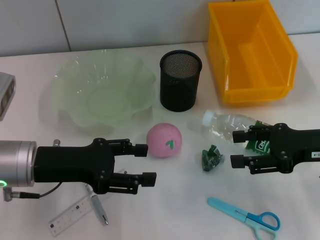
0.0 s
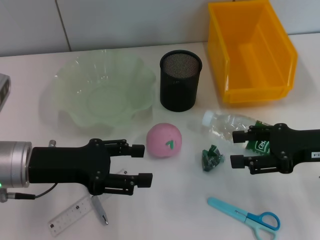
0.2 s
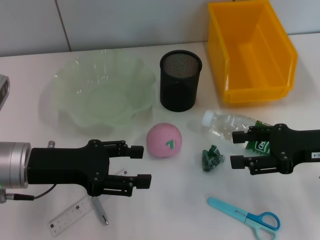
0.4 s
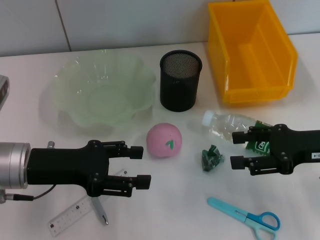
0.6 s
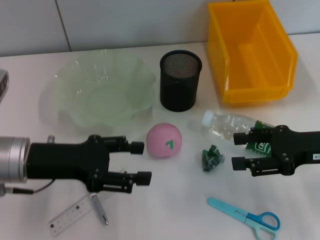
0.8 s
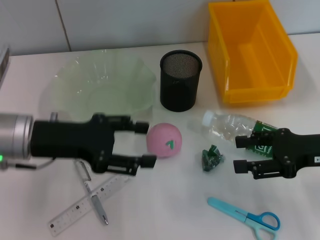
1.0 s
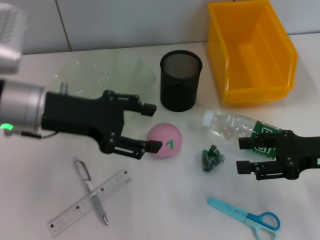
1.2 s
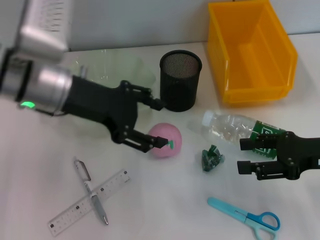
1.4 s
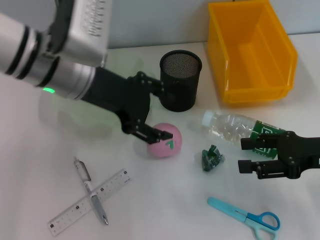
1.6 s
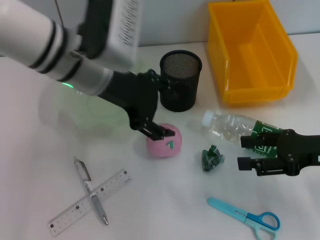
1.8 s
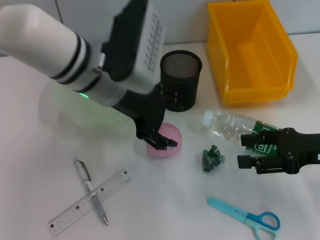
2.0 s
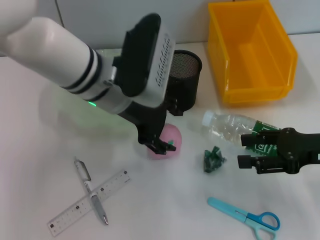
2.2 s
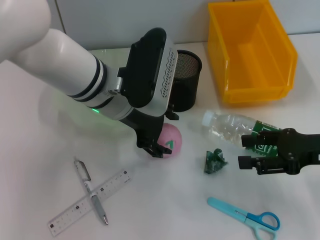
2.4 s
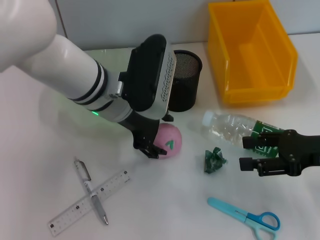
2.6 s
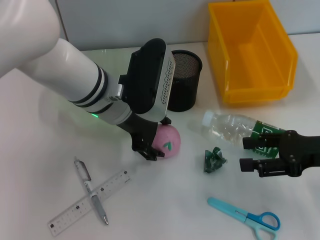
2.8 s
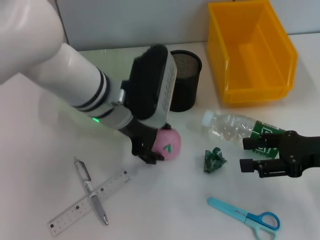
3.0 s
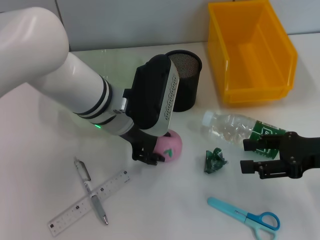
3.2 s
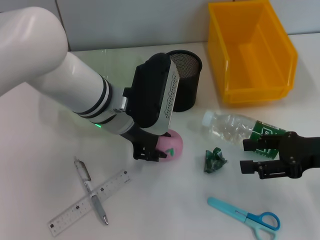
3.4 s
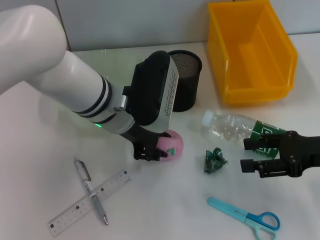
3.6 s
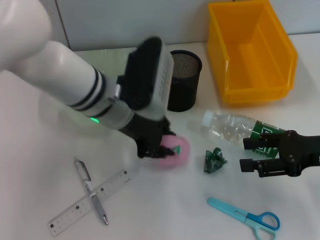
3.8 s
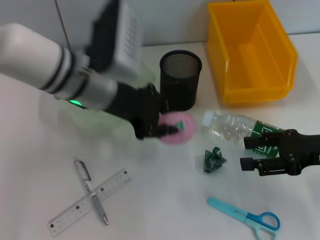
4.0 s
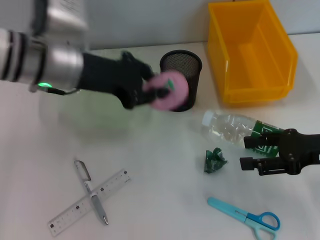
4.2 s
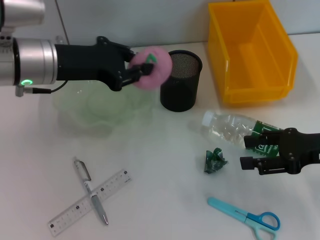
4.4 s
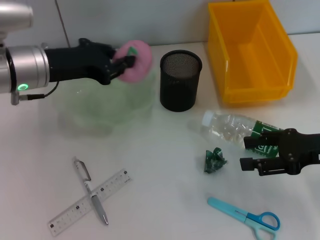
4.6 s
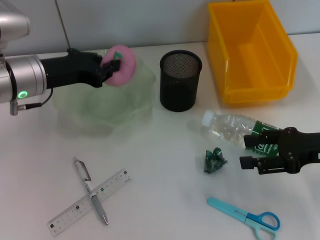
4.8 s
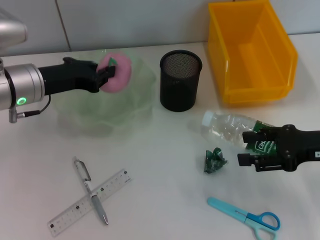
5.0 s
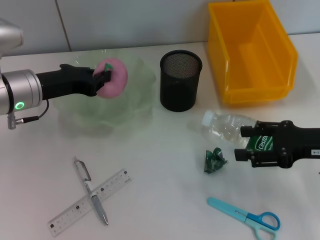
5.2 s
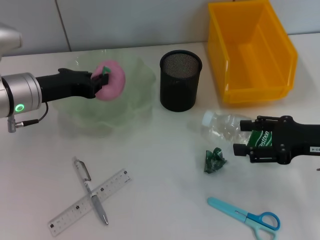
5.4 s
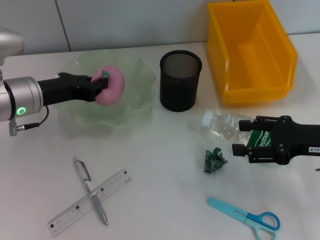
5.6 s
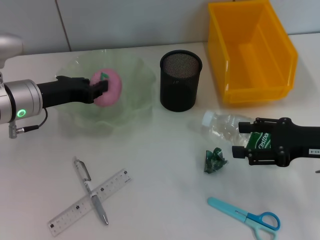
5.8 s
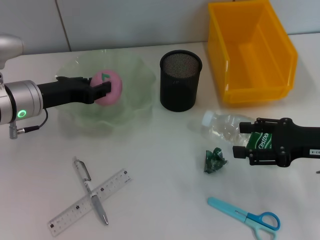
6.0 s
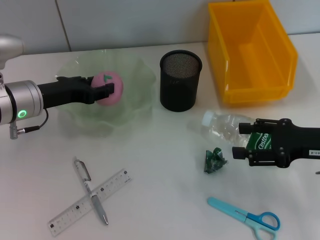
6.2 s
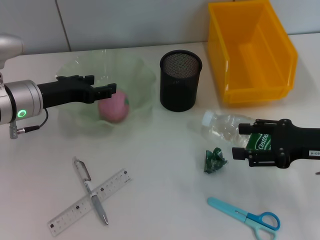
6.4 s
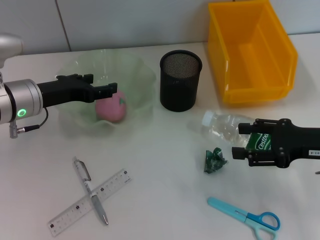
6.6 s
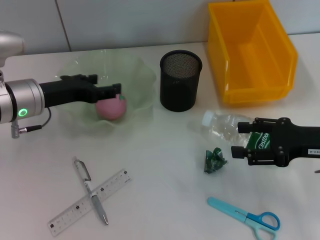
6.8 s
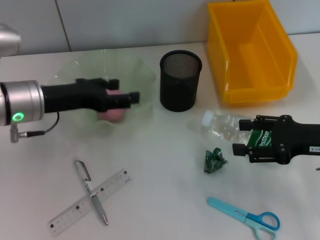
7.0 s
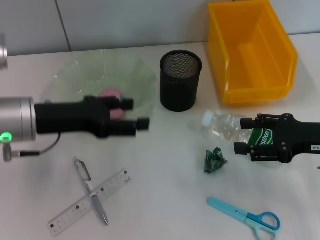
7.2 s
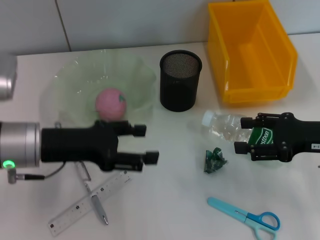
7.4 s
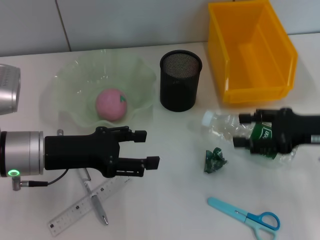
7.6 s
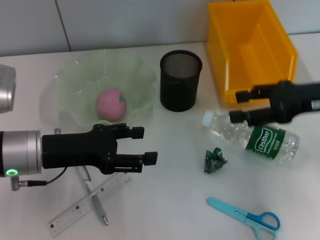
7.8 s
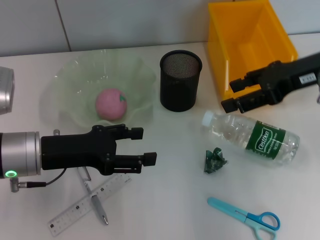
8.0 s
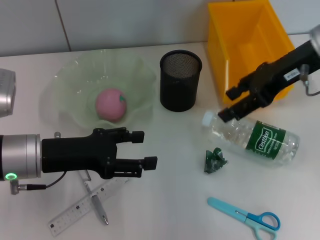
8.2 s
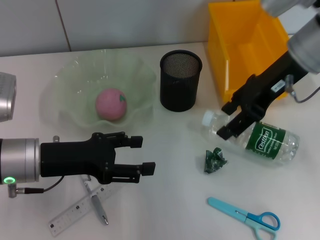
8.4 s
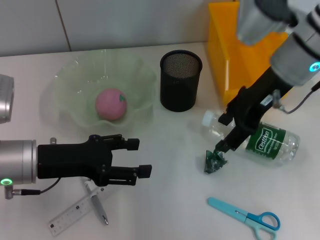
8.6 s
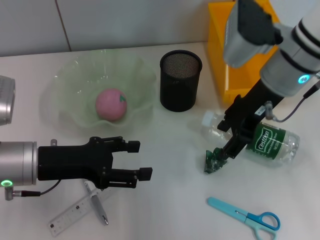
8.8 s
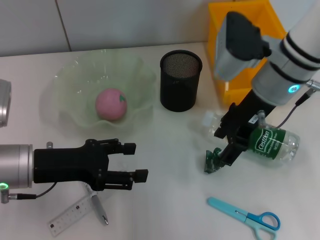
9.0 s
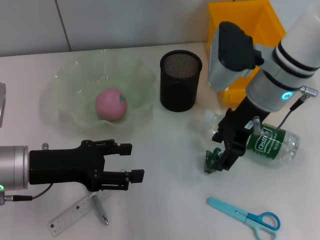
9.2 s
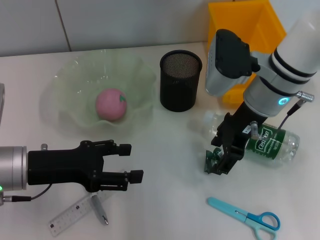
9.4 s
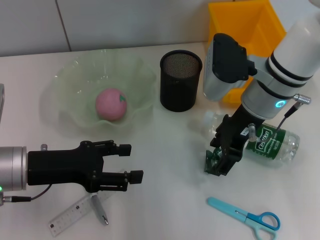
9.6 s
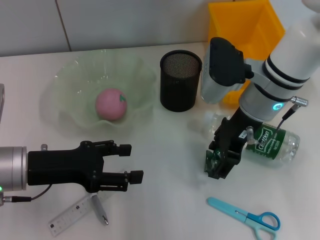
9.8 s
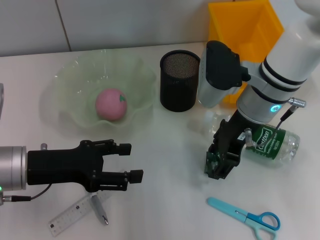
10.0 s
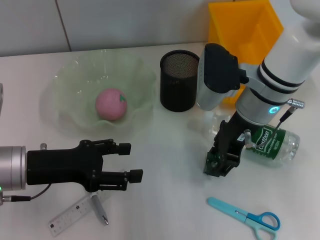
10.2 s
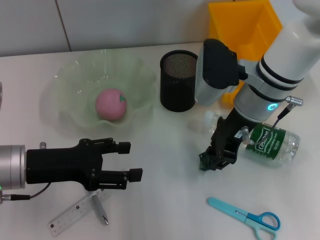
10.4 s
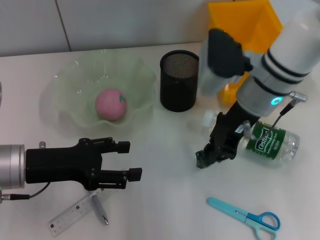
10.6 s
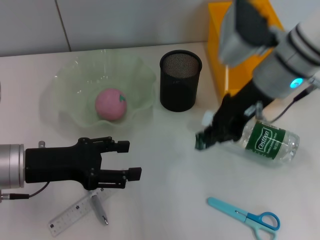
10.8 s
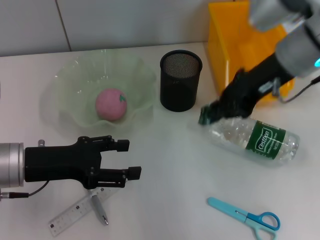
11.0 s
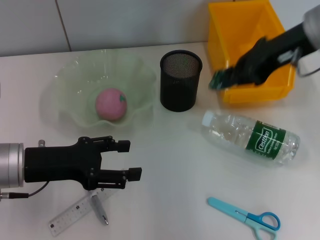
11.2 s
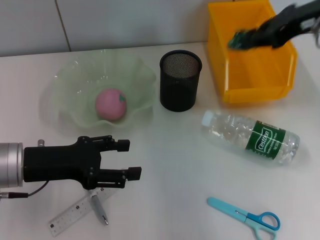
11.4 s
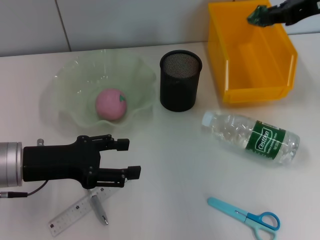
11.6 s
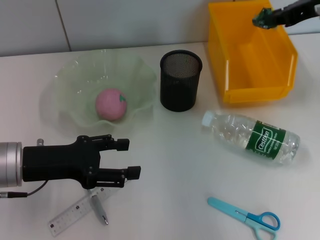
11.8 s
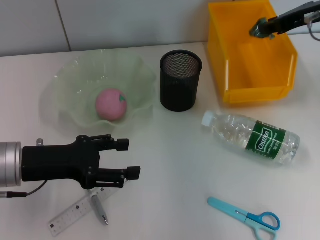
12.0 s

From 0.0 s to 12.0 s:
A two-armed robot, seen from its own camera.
Step, from 0.0 s to 3.6 s: Grab the peach with the left hand.
Step, from 3.8 s to 6.4 s: Place the peach into the fruit bowl with the left hand.
Step, from 6.6 s to 10.2 s: Grab the plastic with the right hand.
From 0.0 s to 1.6 s: The left gripper travels upward, to the right and forward by some 15 cm.
From 1.6 s to 3.0 s: The left gripper travels downward and to the right by some 10 cm.
From 3.0 s to 4.4 s: The left gripper shifts about 10 cm to the left, and closes its fingers.
From 4.4 s to 6.0 s: The left gripper moves downward, roughly 10 cm.
From 6.0 s to 7.6 s: The left gripper travels backward by about 10 cm, and opens its fingers.
From 7.6 s to 9.0 s: The right gripper shifts about 20 cm to the left, forward and upward.
From 9.0 s to 10.4 s: The right gripper closes.
From 10.4 s to 12.0 s: The right gripper shifts some 15 cm to the right and upward, and closes.

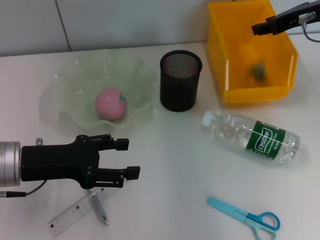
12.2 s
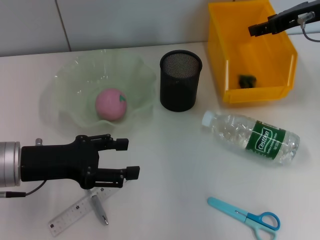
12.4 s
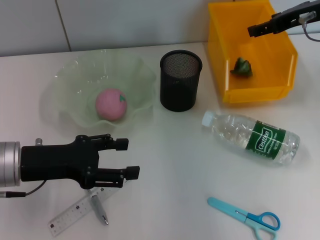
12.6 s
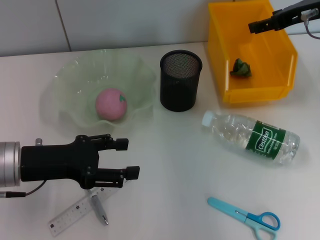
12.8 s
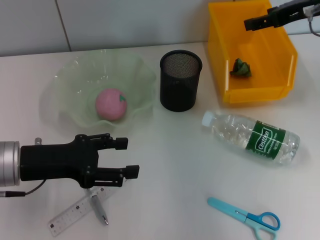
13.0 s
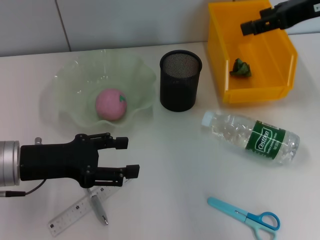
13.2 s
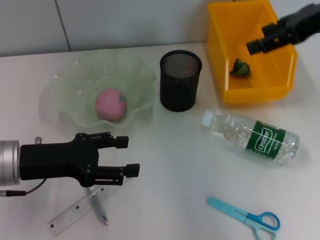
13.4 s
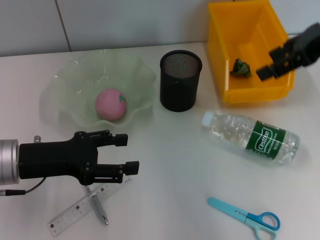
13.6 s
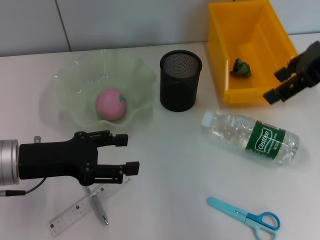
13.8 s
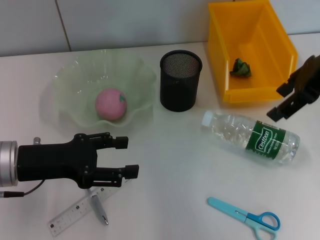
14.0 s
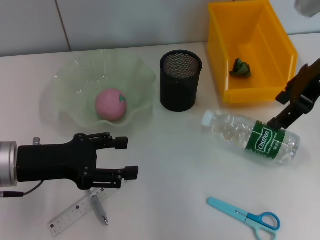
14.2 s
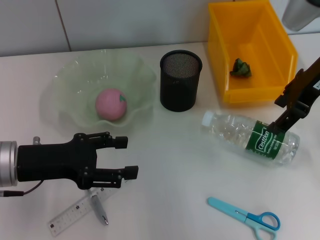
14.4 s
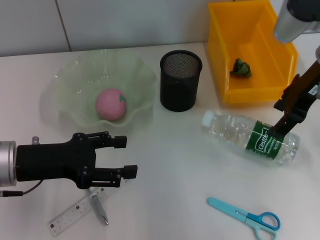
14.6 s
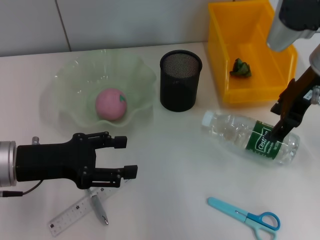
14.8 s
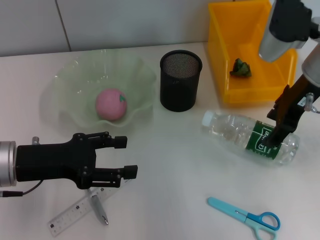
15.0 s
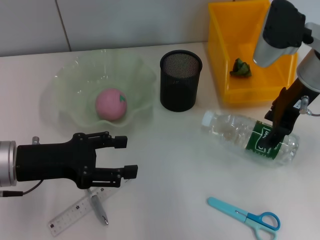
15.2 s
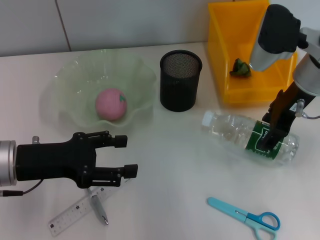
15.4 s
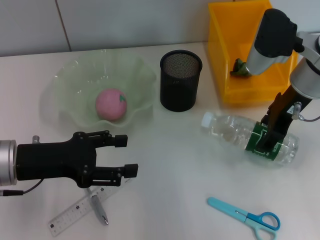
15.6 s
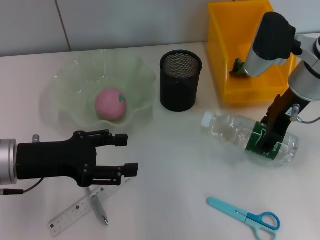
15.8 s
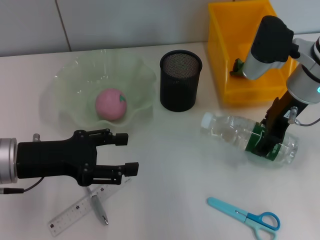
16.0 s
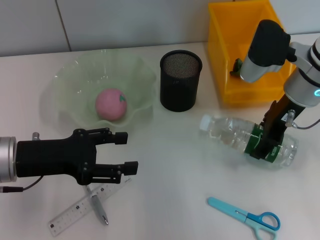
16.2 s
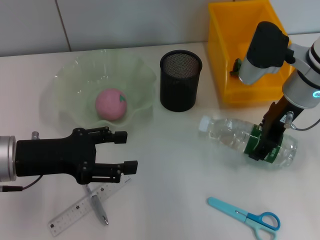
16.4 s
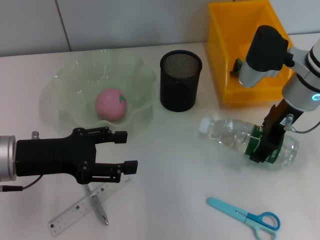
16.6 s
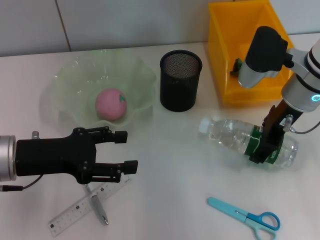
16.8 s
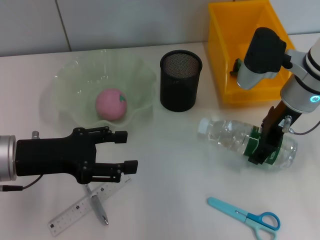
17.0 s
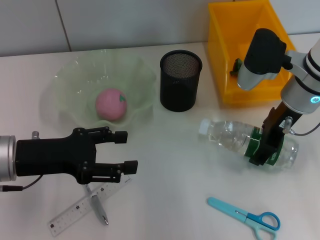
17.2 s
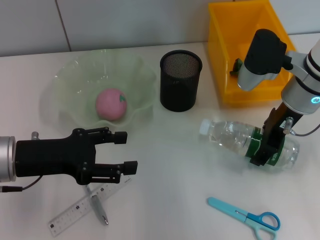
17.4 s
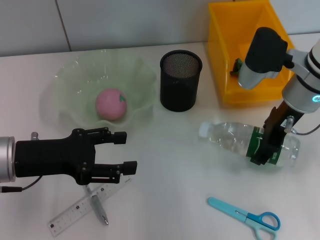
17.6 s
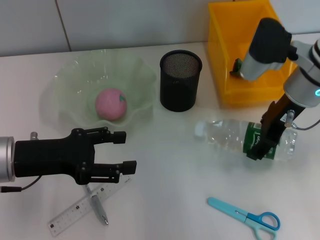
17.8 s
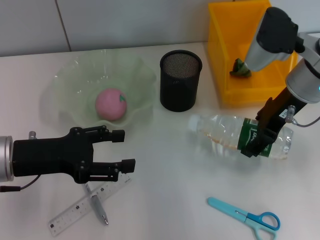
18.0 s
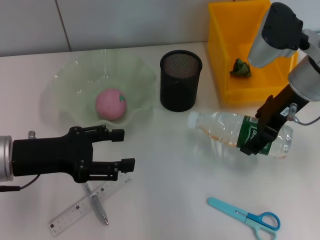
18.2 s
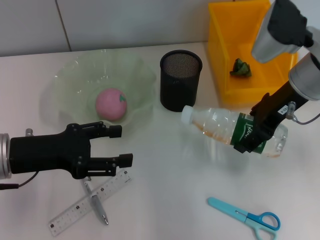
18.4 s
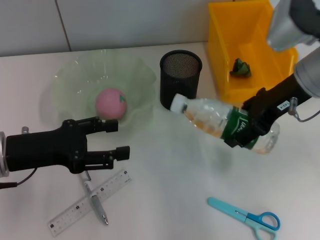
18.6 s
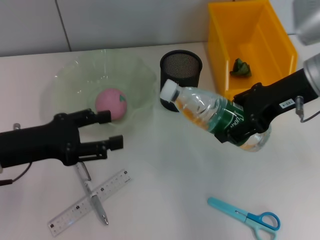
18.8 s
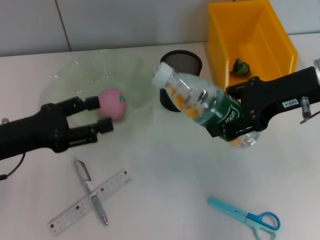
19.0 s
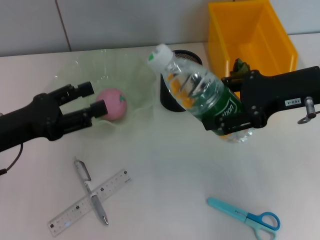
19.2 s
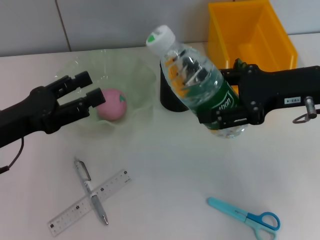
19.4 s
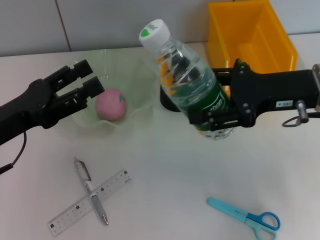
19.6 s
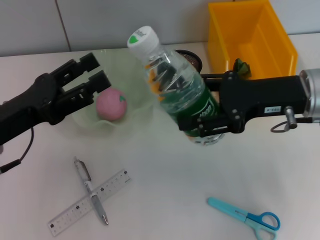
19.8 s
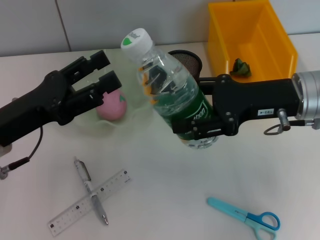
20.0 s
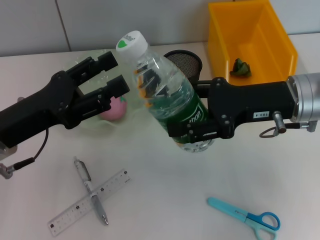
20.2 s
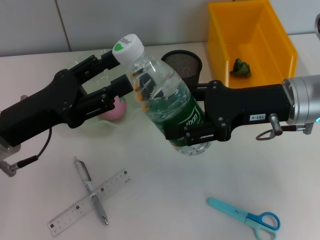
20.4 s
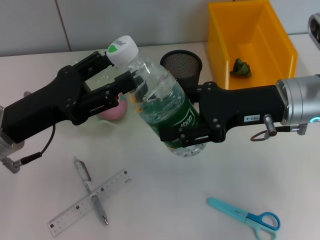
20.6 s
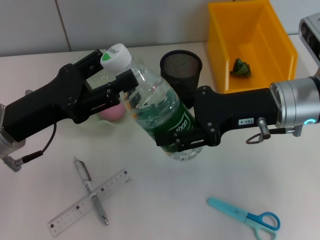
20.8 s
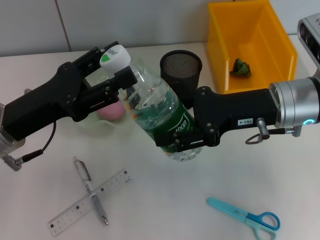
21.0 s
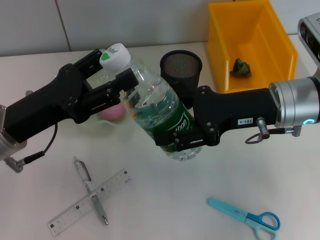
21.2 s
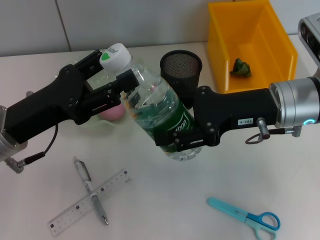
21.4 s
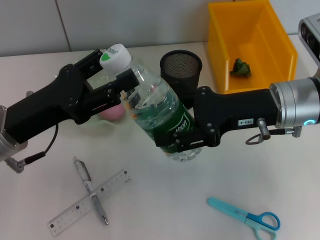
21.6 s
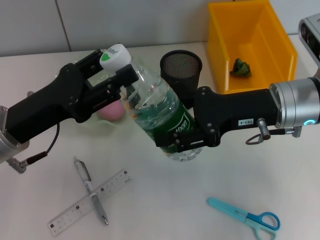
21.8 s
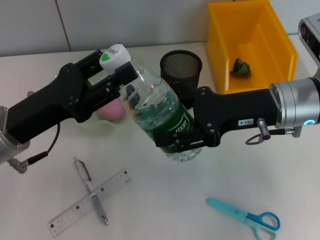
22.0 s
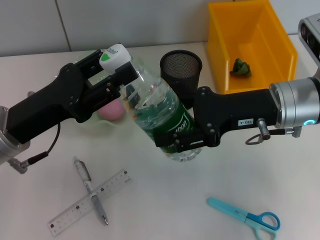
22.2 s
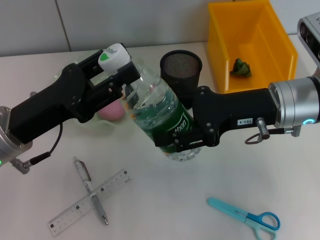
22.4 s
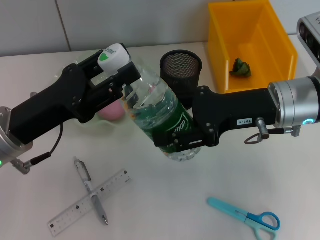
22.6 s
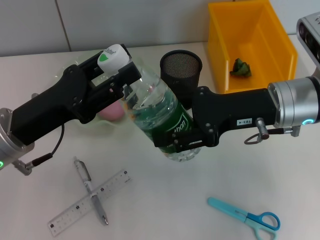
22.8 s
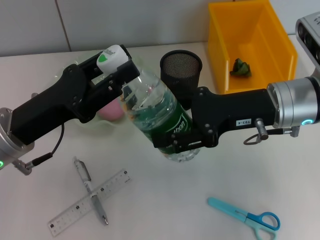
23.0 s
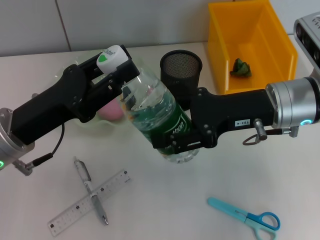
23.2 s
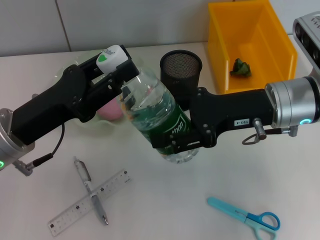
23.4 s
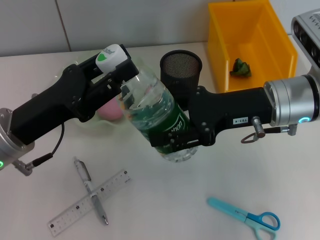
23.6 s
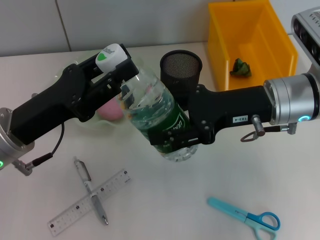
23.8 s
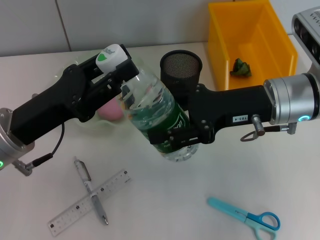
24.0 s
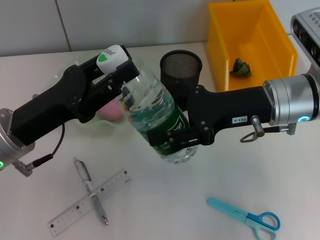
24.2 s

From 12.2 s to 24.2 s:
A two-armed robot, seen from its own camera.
Step, from 12.6 s to 17.6 s: Grab the water bottle with the right hand.
From 12.2 s to 13.8 s: The right gripper travels backward and upward by about 10 cm, and opens its fingers.
From 13.8 s to 15.2 s: The right gripper goes approximately 10 cm downward and to the left.
From 15.2 s to 18.2 s: The grippers make only small movements.
From 18.2 s to 19.8 s: The right gripper moves backward, roughly 5 cm.
From 21.2 s to 24.2 s: The two grippers keep their place.
